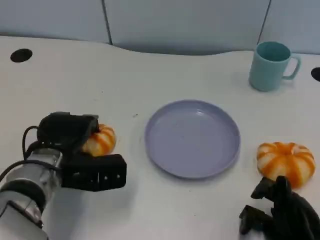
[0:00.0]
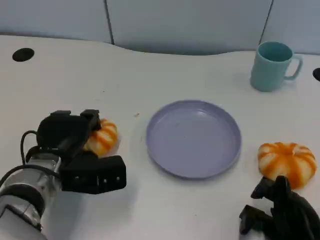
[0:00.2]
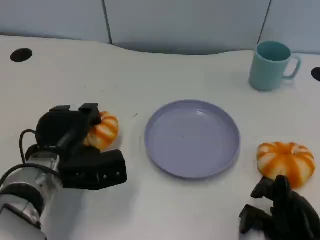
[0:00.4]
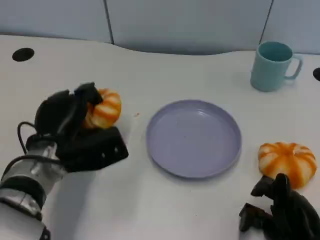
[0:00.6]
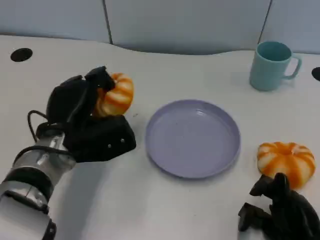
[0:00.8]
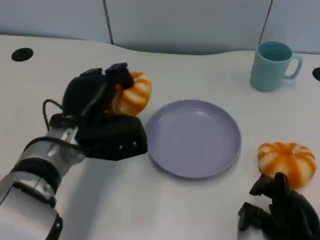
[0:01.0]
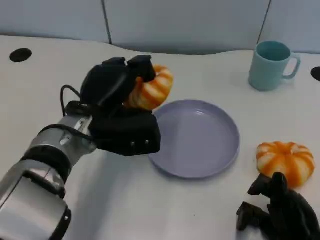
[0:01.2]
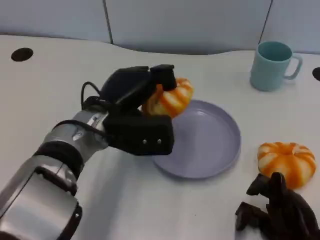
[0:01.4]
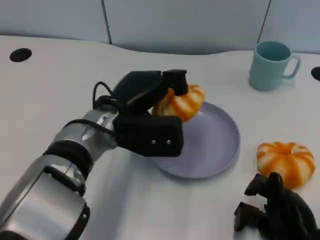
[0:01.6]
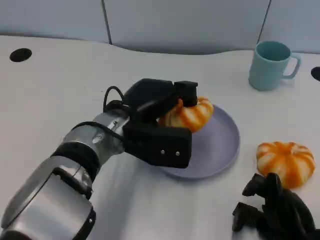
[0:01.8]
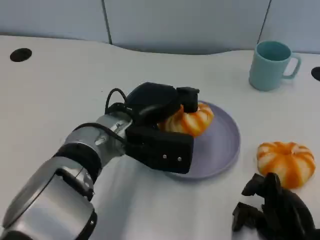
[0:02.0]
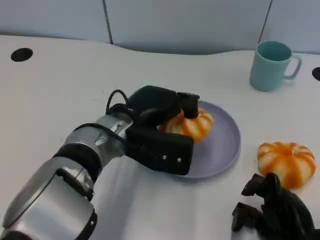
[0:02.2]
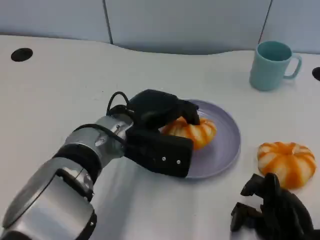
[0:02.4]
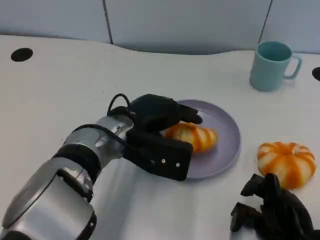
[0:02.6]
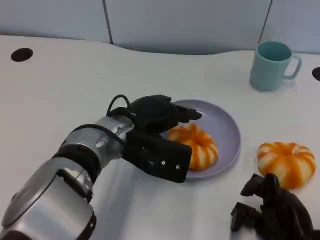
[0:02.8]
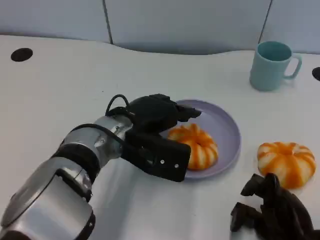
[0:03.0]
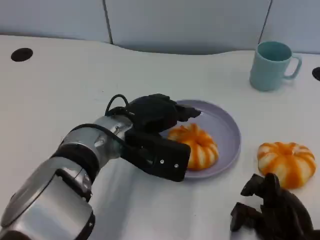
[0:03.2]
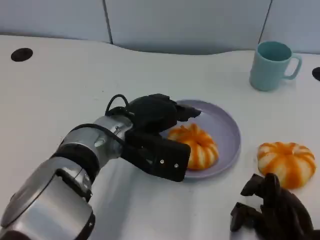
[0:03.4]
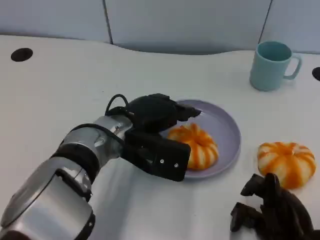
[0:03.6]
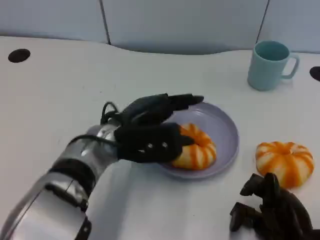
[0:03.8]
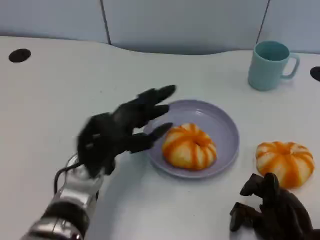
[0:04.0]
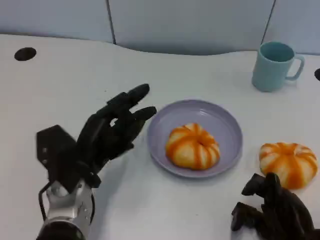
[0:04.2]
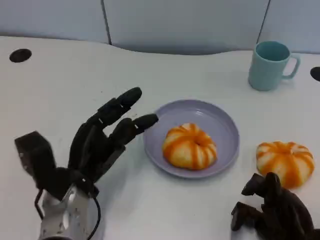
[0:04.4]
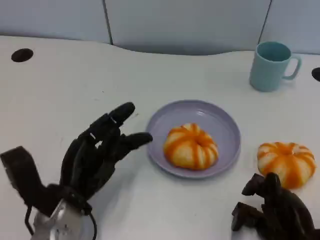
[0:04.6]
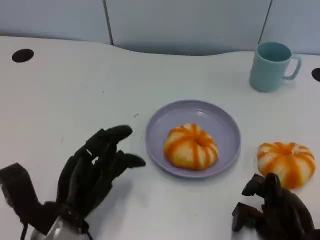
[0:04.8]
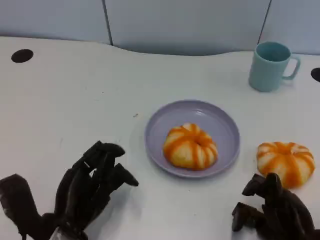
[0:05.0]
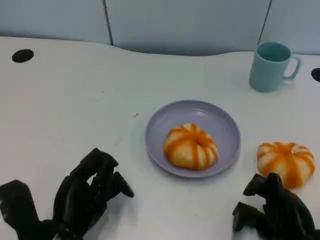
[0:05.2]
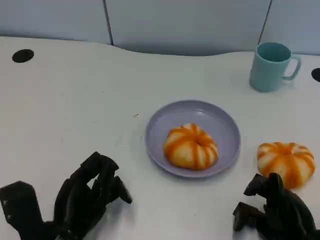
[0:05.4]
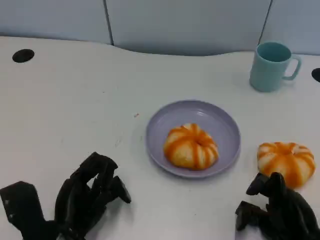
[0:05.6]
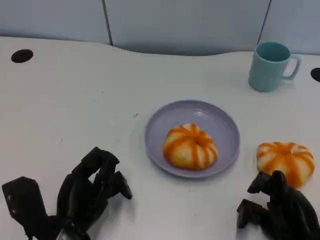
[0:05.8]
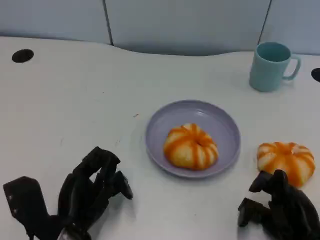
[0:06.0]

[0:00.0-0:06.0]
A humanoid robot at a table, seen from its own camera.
Task of the whole recording: Grasp the bread from the table and place it into the plate.
0:00.0 to 0:01.6: The left hand travels to the right and upward by some 10 cm.
0:03.0 to 0:04.4: The left hand heads to the left, downward and backward, covering about 10 cm.
0:04.4 to 0:06.0: The left hand moves backward, approximately 5 cm.
